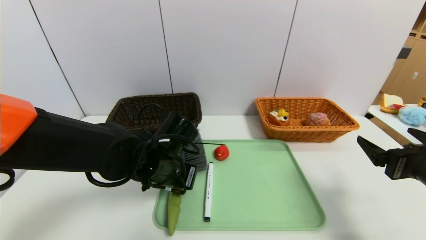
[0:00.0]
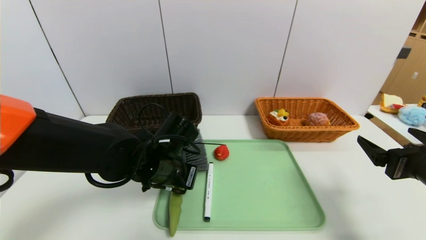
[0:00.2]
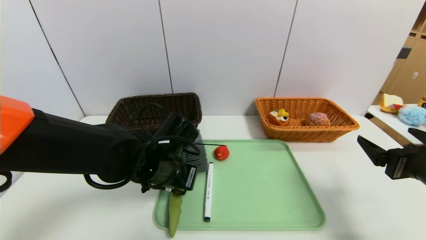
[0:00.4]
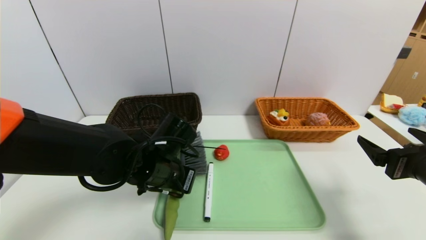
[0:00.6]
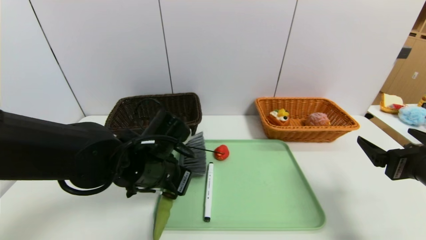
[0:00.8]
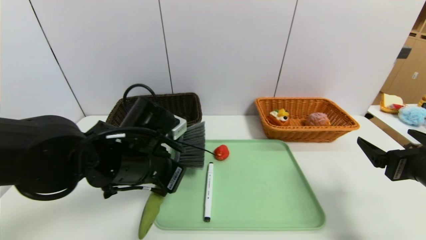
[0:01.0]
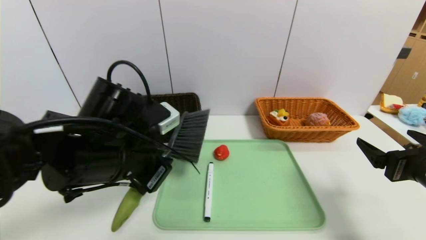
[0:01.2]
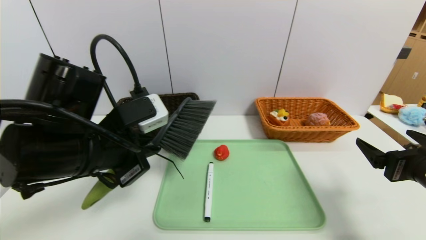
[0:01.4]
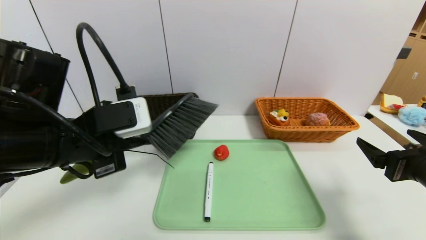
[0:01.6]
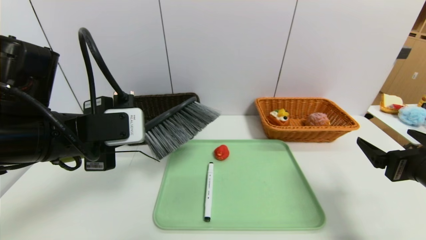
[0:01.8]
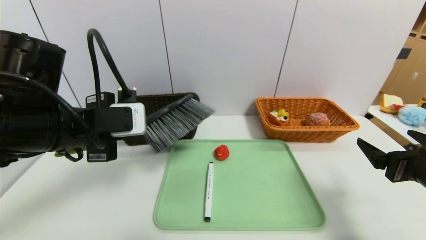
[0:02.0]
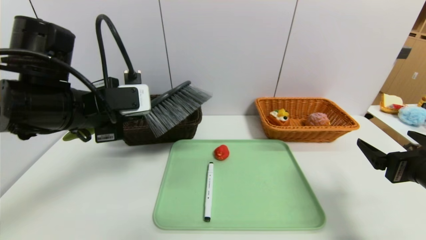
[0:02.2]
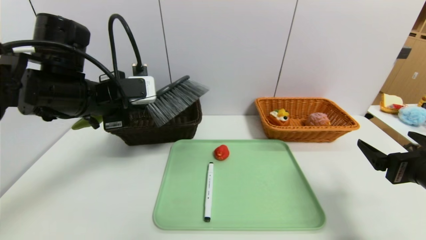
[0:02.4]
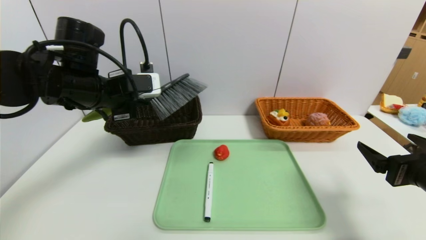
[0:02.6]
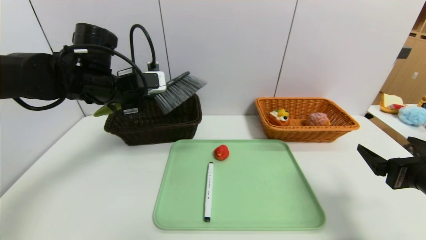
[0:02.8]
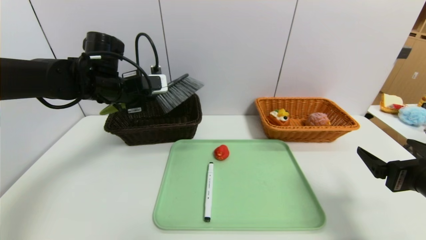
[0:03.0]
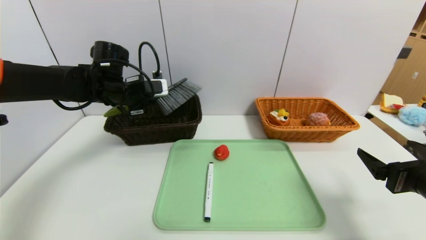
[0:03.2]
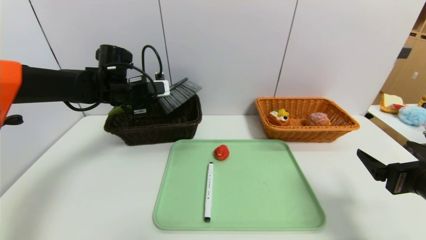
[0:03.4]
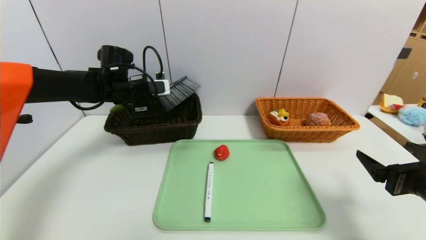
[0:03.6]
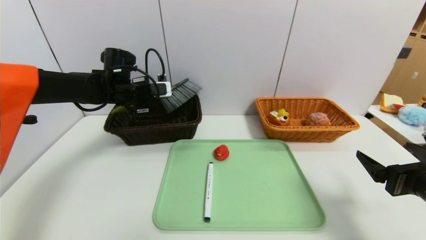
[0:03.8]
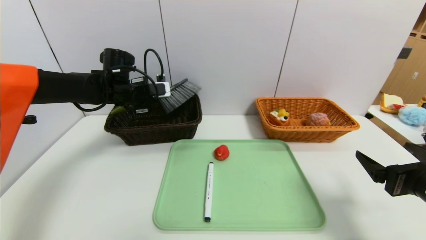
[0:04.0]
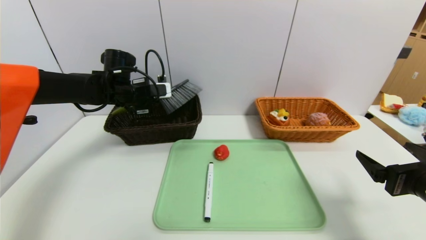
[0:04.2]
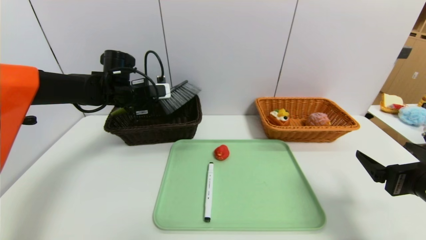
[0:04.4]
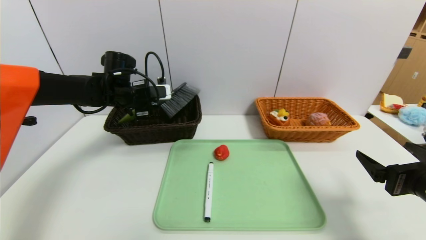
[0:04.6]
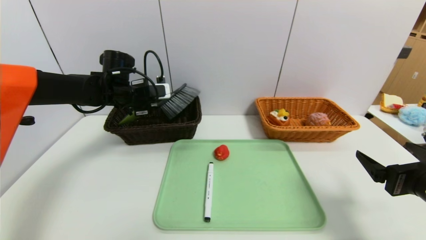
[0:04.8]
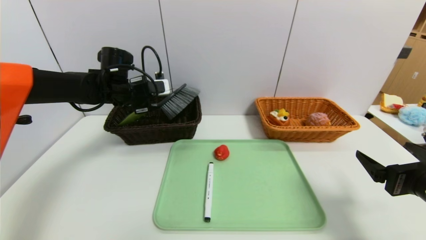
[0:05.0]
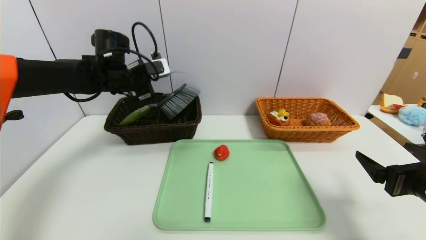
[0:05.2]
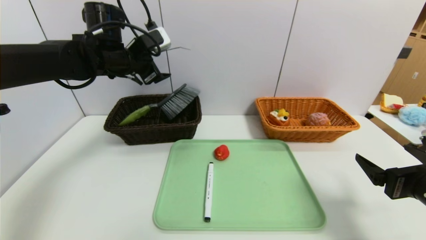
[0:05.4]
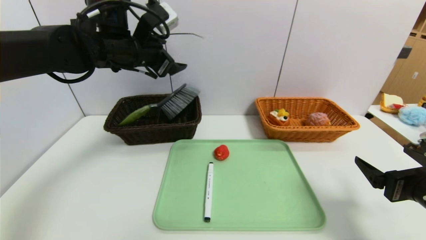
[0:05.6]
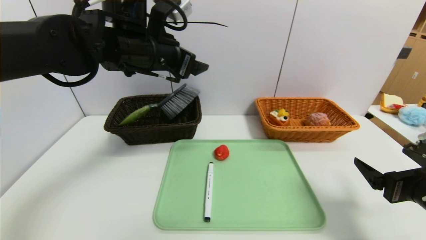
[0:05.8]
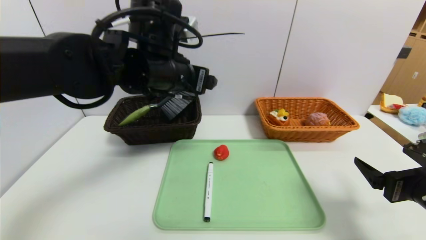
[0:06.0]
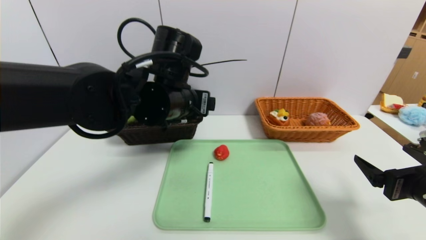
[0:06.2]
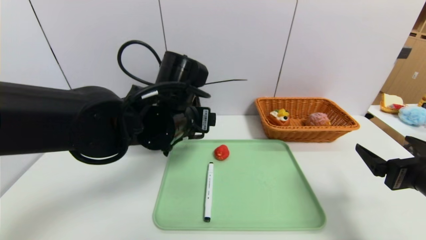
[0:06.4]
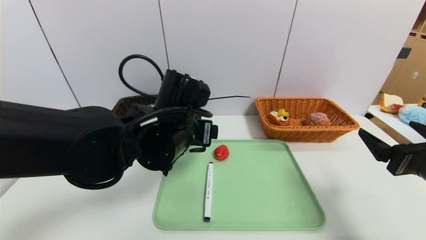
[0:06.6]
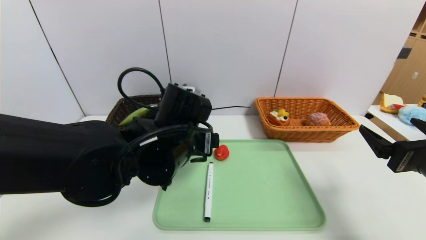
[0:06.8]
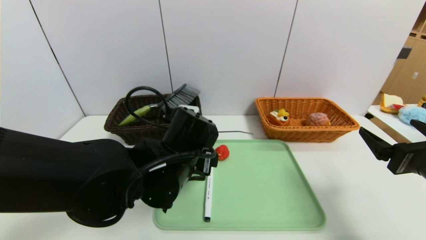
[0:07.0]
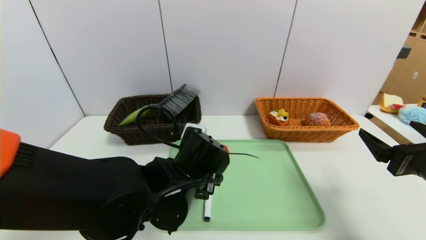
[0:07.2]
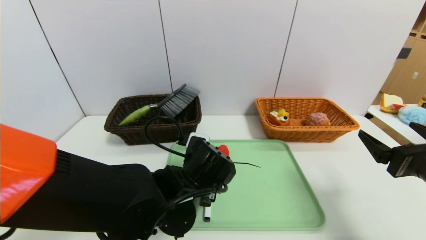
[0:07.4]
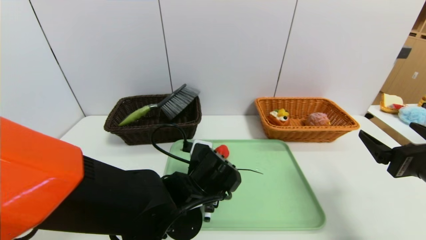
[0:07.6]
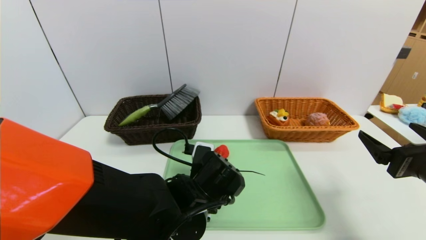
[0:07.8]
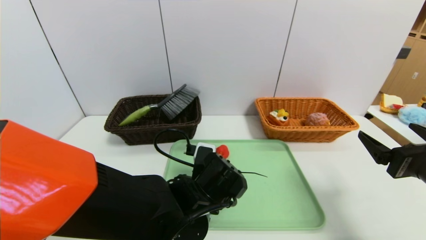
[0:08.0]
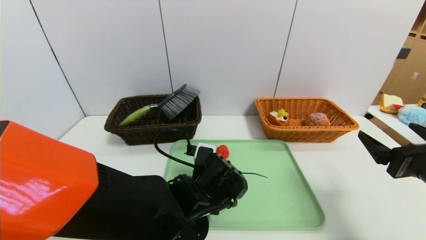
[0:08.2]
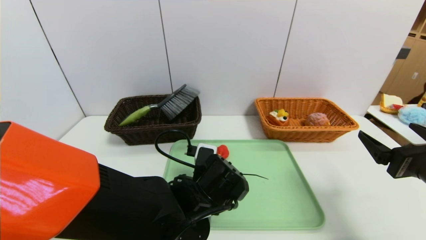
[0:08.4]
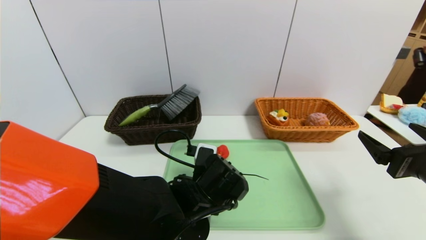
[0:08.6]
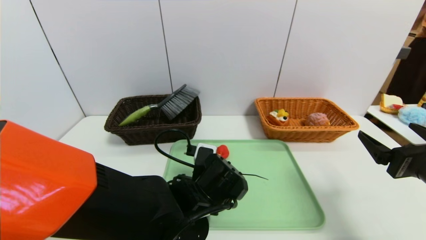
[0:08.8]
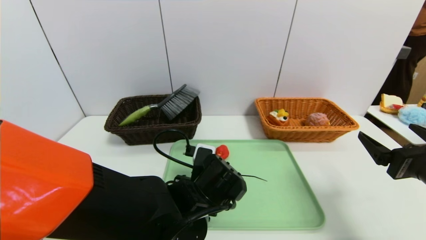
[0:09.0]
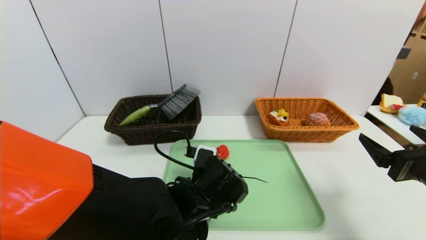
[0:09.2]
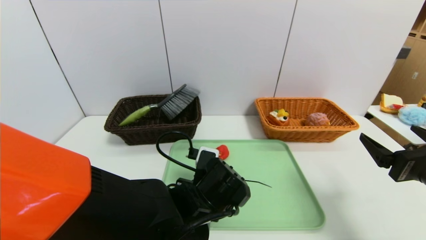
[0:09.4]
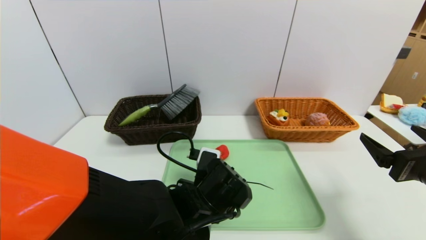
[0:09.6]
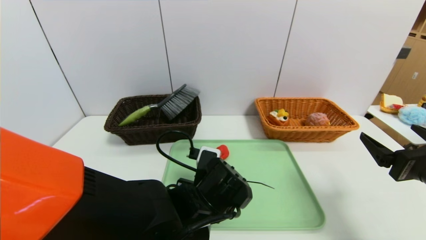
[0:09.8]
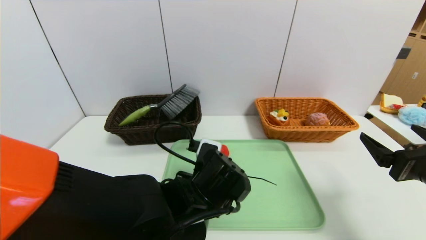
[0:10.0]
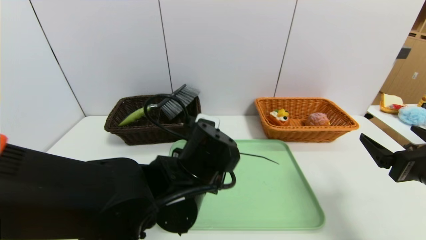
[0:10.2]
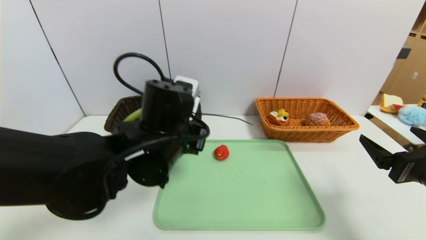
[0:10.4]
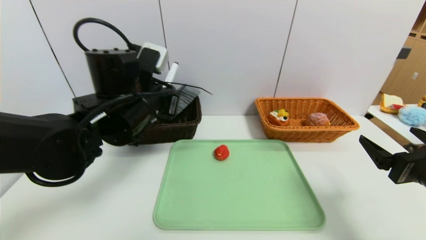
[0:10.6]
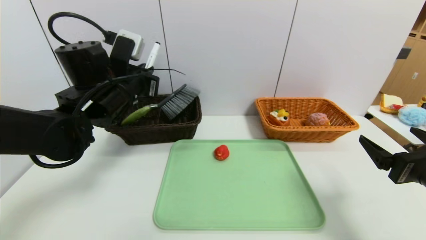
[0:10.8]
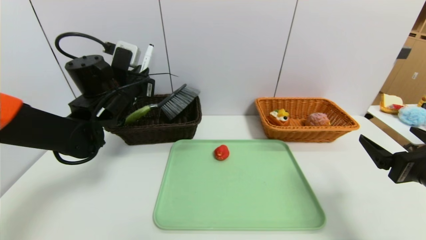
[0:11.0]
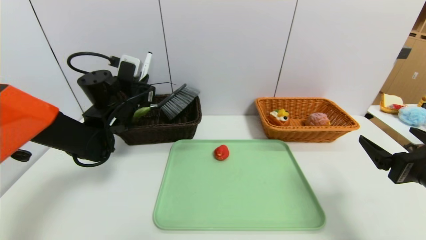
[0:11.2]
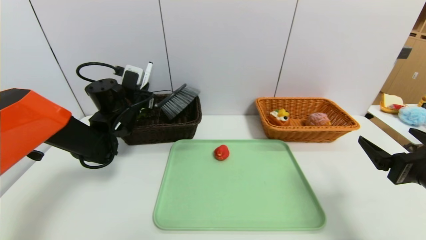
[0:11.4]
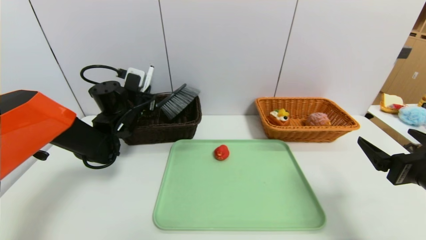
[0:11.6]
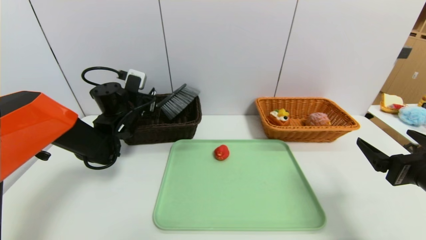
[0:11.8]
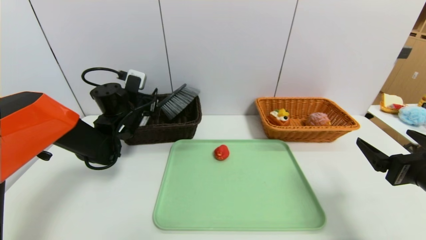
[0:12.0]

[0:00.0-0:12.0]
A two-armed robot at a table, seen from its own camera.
Task of the whole recording: place the food in the right basket with the right gripper, and place the non food items in the left basket with the left gripper.
Step, 0:00.0 to 0:05.2: Grasp the brush and put it in the left basket.
0:00.0 to 0:01.6: The left gripper goes about 15 cm upward, to the left and backward.
0:01.6 to 0:03.0: The left gripper goes some 20 cm forward.
0:03.0 to 0:04.4: The left gripper moves forward, approximately 5 cm.
0:04.4 to 0:06.0: The left gripper goes roughly 20 cm to the right, backward and upward, and opens up.
0:06.0 to 0:07.6: The left gripper is displaced downward and backward by about 20 cm.
0:07.6 to 0:09.0: The grippers make only small movements.
0:09.0 to 0:10.4: The left gripper moves upward, roughly 10 cm, and closes up.
0:10.4 to 0:12.0: The left gripper is displaced forward and to the left by roughly 20 cm, and opens its fingers.

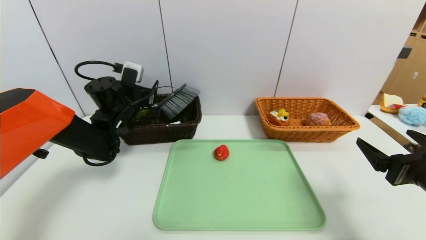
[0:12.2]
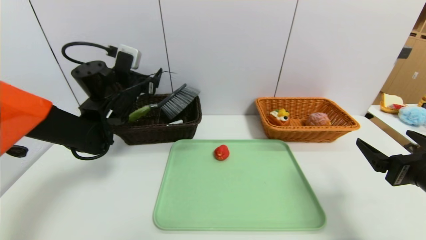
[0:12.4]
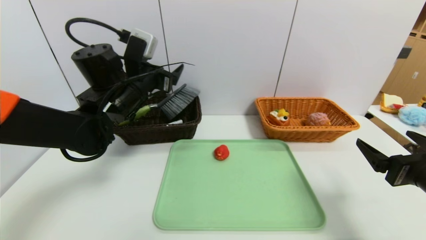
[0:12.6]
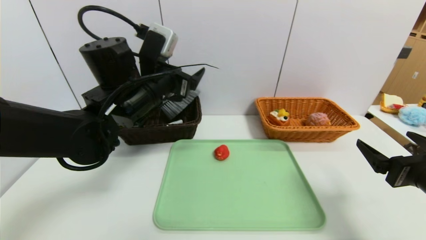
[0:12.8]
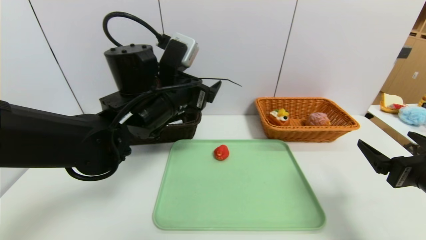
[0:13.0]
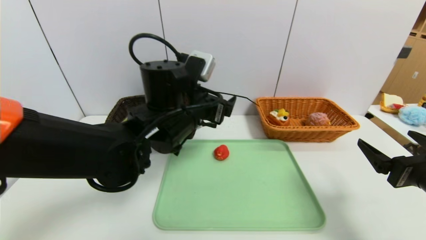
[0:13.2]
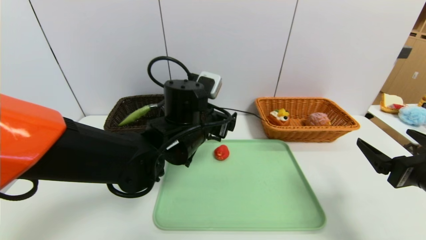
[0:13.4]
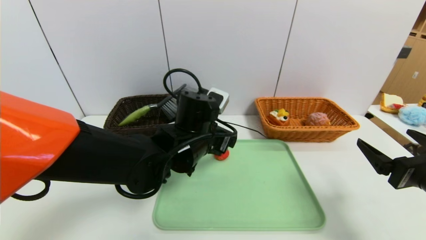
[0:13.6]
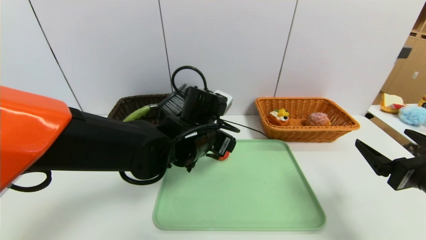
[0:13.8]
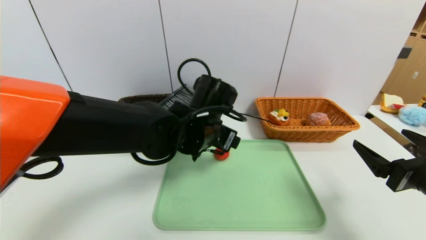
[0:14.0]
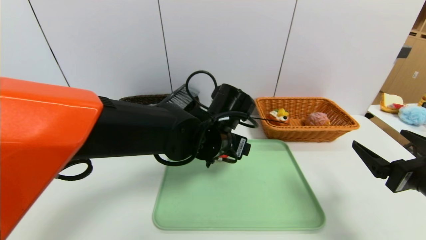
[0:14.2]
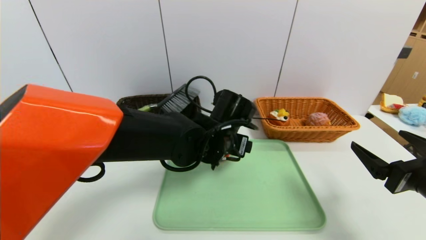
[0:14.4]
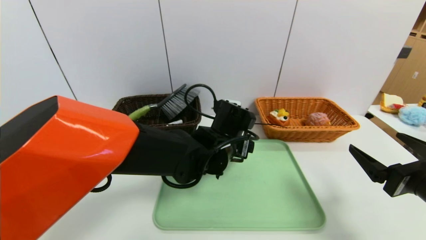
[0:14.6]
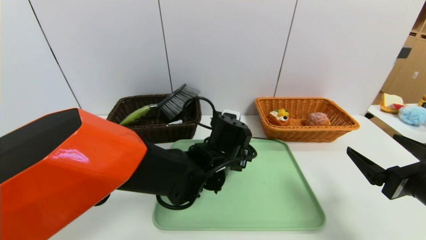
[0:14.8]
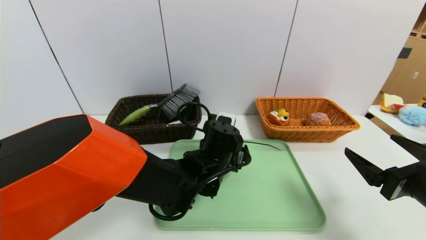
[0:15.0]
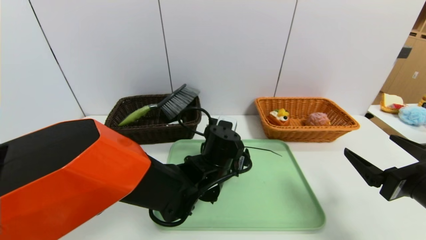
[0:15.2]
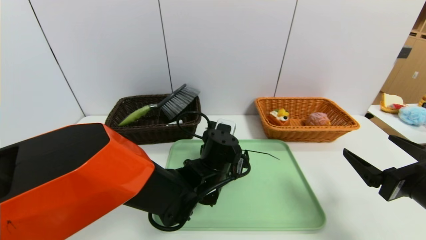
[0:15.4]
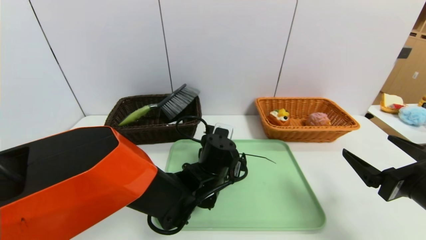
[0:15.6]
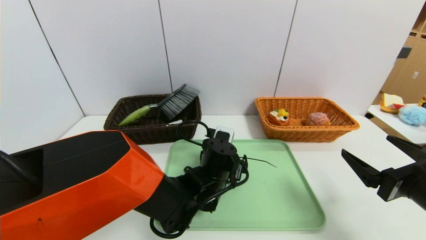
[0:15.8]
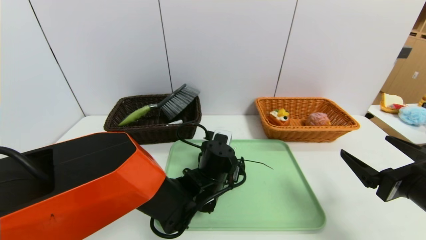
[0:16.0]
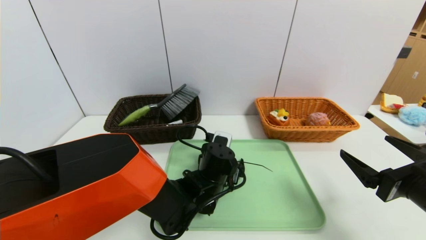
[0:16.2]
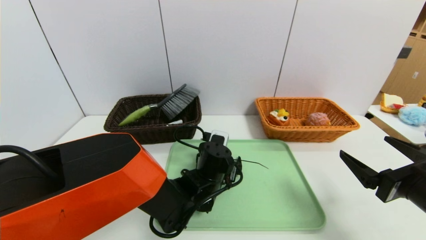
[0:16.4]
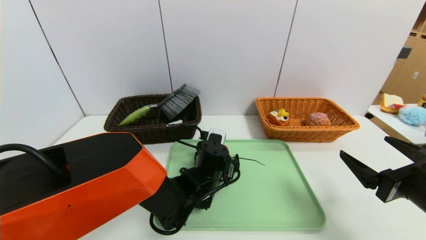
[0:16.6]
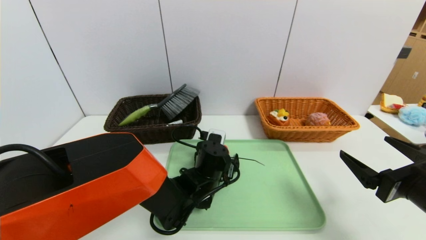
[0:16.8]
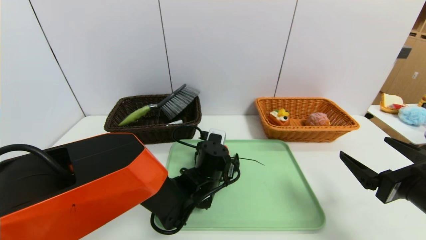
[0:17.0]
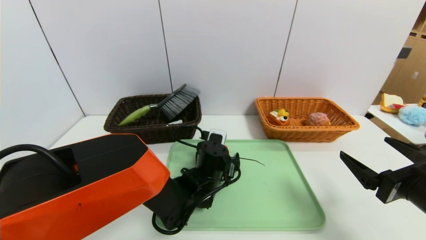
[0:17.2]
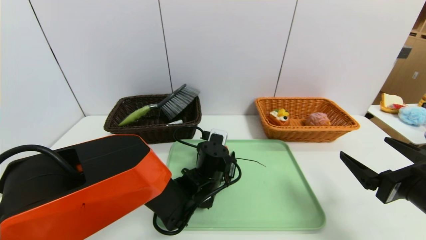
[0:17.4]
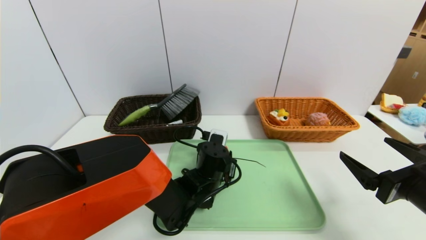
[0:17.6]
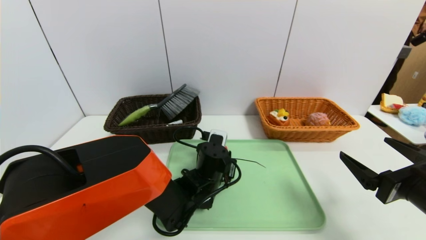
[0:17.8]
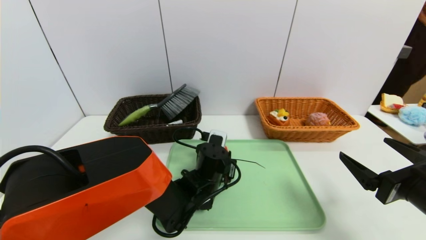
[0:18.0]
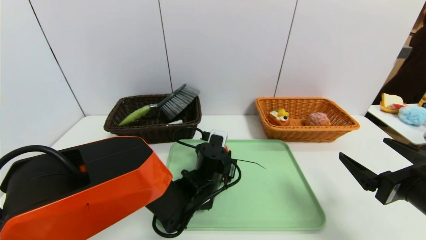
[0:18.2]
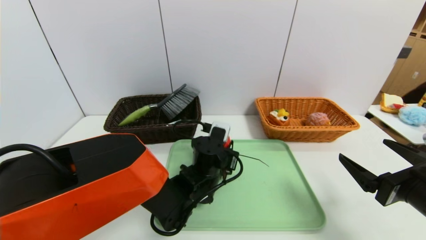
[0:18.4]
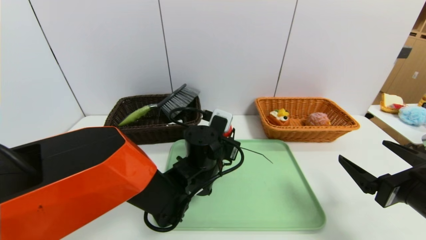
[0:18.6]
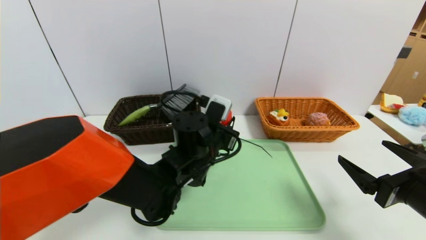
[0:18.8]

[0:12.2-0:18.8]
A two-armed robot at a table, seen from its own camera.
Task of the whole recording: place the food in the right basket with the right gripper, and place the non food items in the left basket with the left gripper.
0:12.2 to 0:13.8: The left gripper heads to the right and backward, covering roughly 20 cm.
0:13.8 to 0:15.4: The left gripper travels downward by about 10 cm.
0:15.4 to 0:17.2: The grippers move only a little.
0:17.2 to 0:18.8: The left gripper goes roughly 10 cm upward, and closes.
